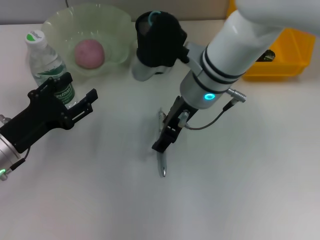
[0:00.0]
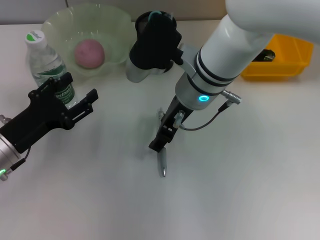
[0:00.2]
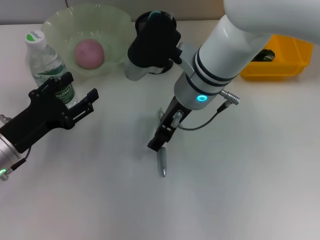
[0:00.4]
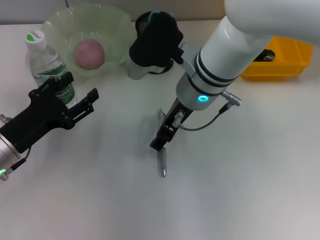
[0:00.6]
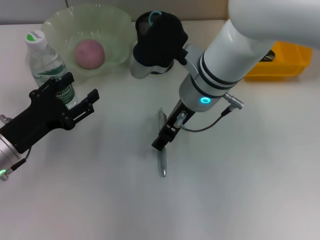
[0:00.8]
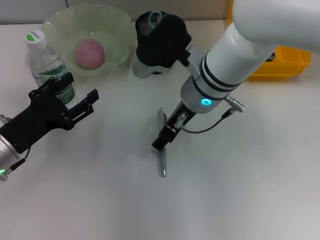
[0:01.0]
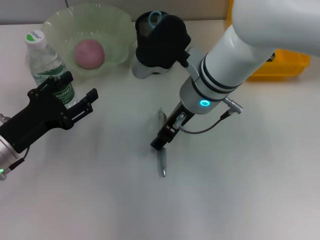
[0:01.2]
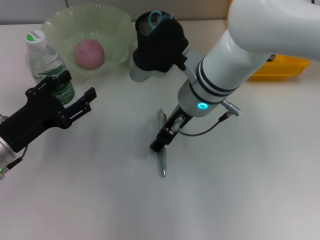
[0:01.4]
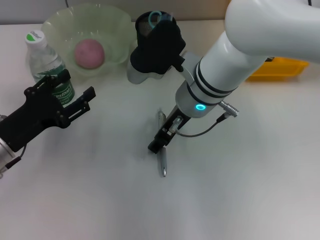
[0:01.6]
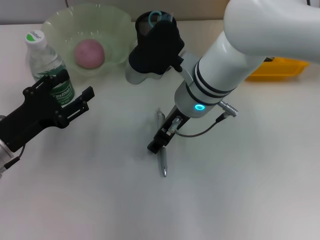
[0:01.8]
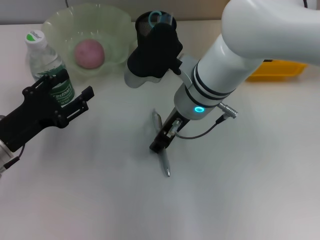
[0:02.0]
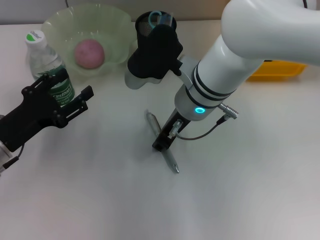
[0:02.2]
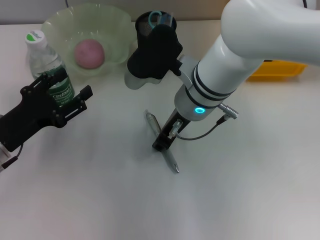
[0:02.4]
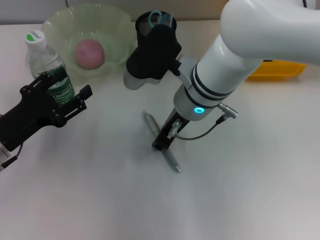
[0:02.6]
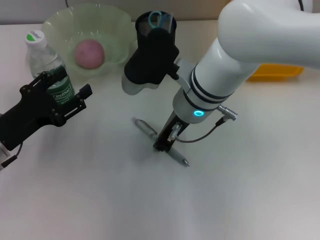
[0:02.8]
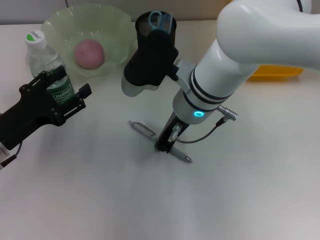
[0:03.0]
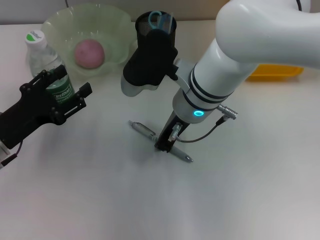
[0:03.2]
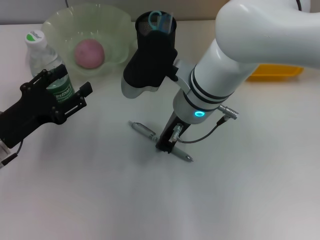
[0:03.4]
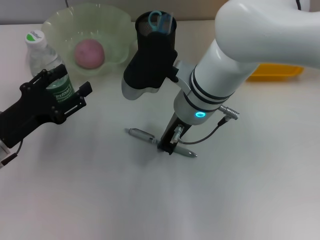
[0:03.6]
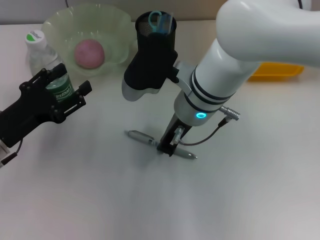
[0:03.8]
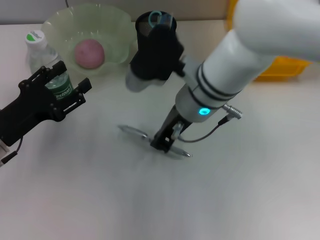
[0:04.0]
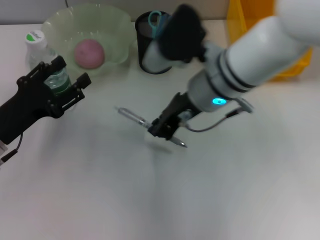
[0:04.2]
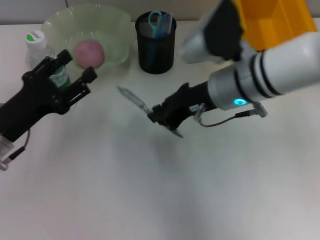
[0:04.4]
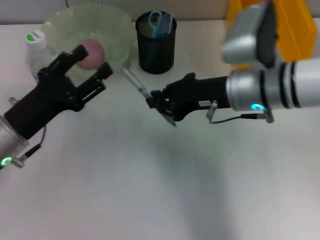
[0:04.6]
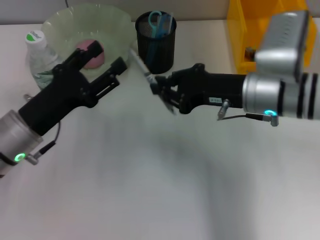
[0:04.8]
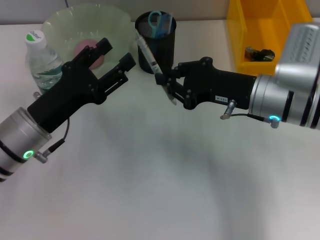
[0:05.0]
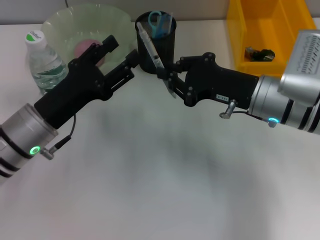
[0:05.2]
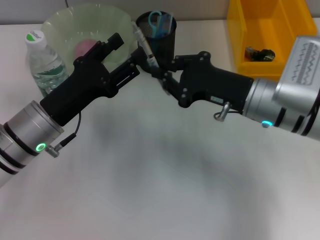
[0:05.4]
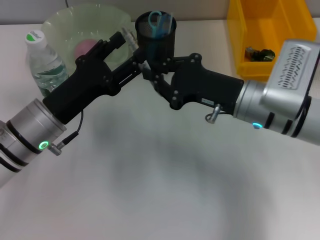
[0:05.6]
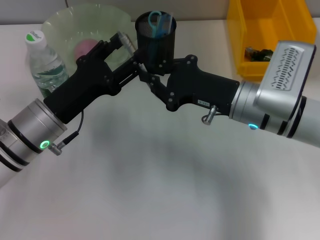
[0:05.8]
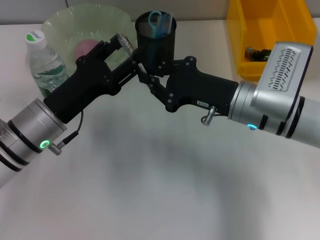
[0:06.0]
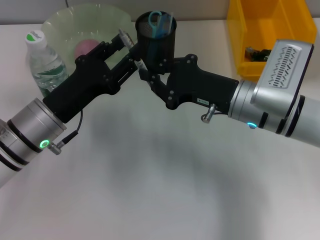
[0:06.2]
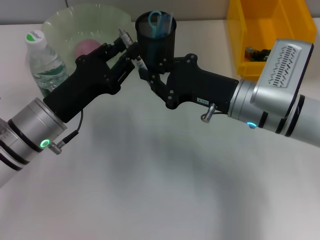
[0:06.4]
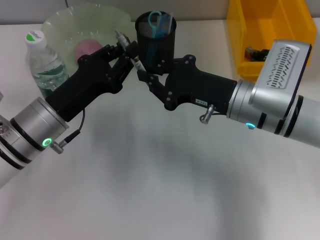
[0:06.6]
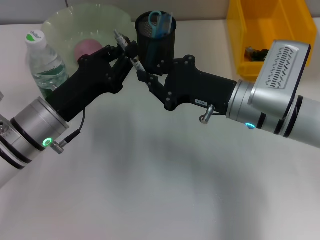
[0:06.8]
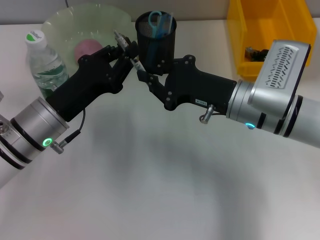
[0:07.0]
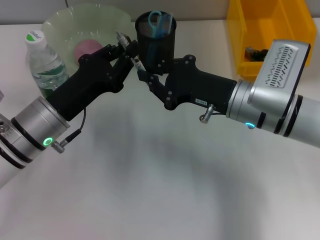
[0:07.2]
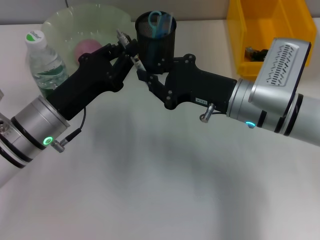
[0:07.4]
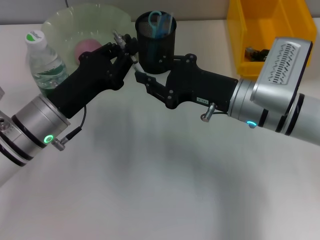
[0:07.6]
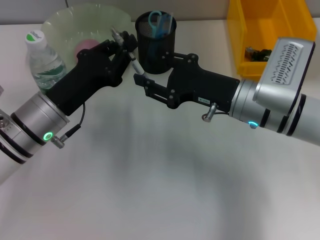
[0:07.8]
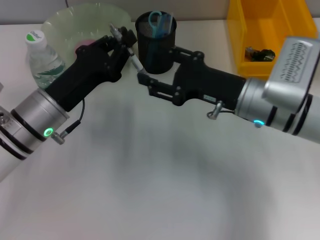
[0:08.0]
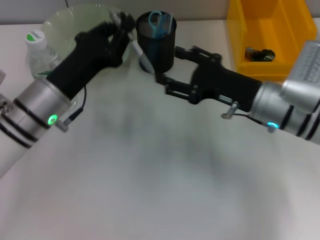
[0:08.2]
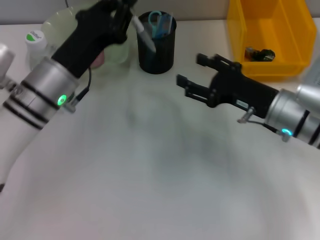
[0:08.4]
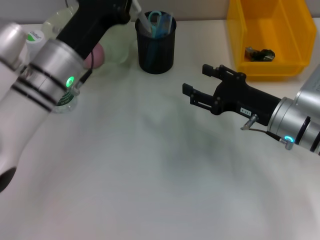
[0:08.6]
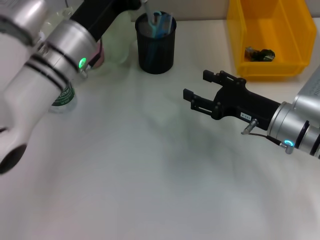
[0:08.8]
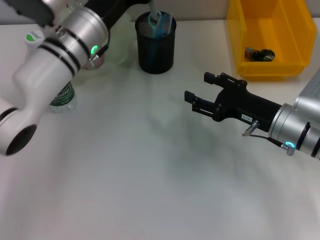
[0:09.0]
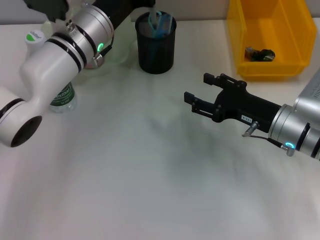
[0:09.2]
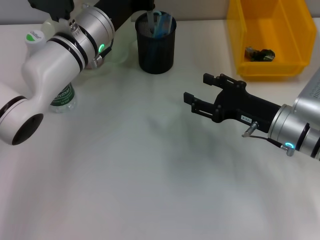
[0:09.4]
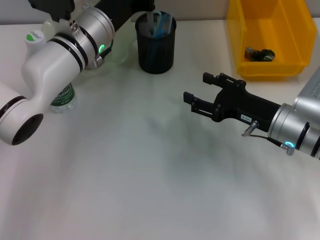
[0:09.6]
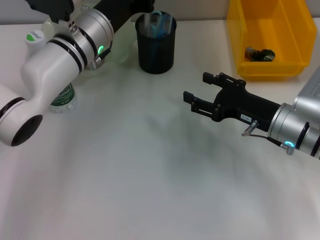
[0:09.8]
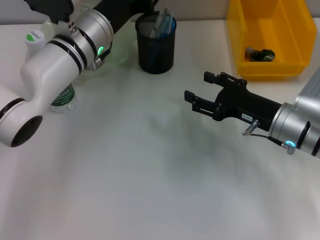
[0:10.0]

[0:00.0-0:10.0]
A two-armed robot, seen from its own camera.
Step, 0:00.0 to 0:03.4: Grab the gray spring-action pen with the right hand.
Step, 0:03.6 to 0:08.0: Pass the gray spring-action pen from the right hand to the left hand.
0:00.0 to 0:01.4: There are only small adjustments of the grippers.
0:01.4 to 0:02.8: The right gripper closes its fingers.
0:04.2 to 0:05.8: The left gripper goes about 10 cm to the right. Meanwhile the right gripper is displaced to the right and downward by approximately 10 cm.
0:05.8 to 0:07.2: The left gripper closes its fingers.
0:07.2 to 0:08.6: The right gripper travels to the right by approximately 5 cm, and opens up. Meanwhile the left gripper is displaced forward by about 5 cm.
0:08.6 to 0:10.0: The left gripper travels forward by about 5 cm.

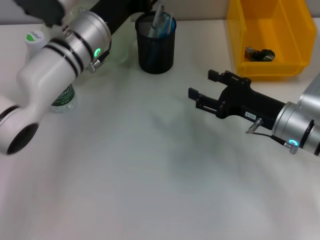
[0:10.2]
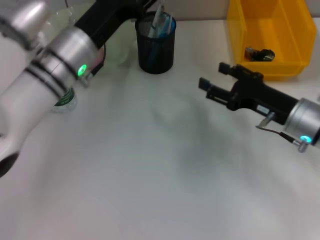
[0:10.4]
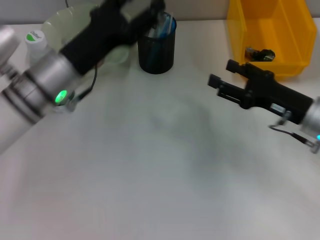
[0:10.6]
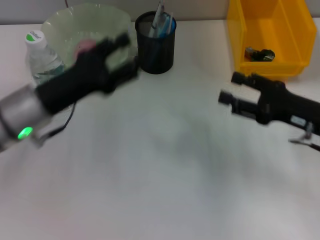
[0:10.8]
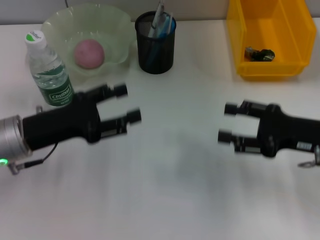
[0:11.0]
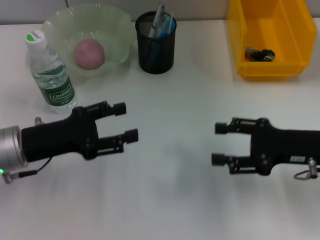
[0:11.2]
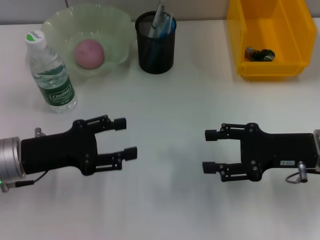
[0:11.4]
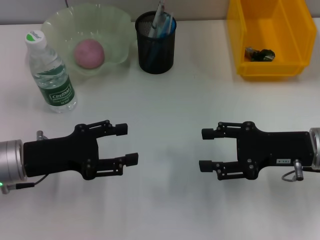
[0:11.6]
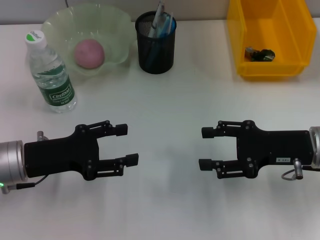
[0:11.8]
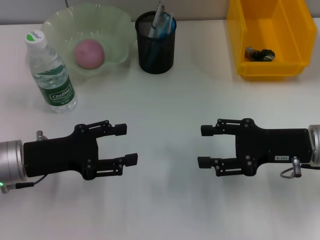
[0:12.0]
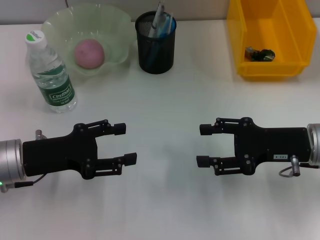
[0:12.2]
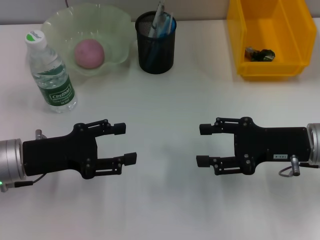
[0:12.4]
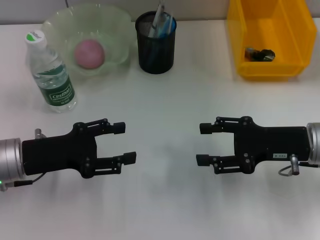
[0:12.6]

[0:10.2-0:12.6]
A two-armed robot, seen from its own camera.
0:10.2 to 0:11.4: The left gripper goes about 20 cm backward and to the left, and opens up. Meanwhile the right gripper shifts by approximately 5 cm.
0:11.4 to 0:12.6: The grippers make only small movements.

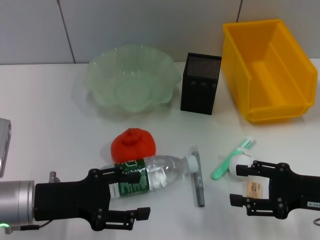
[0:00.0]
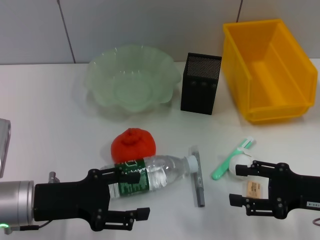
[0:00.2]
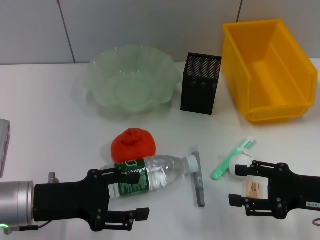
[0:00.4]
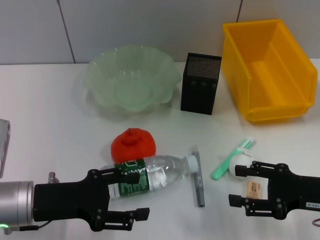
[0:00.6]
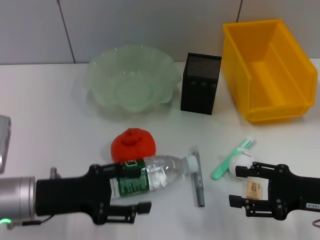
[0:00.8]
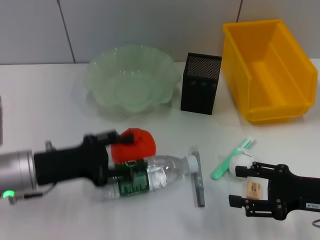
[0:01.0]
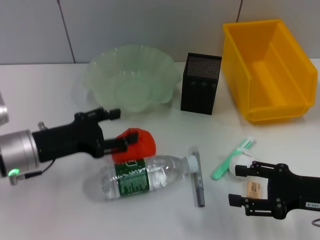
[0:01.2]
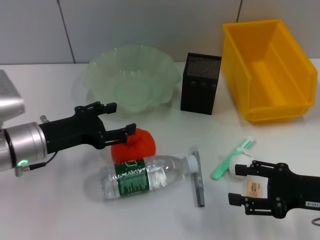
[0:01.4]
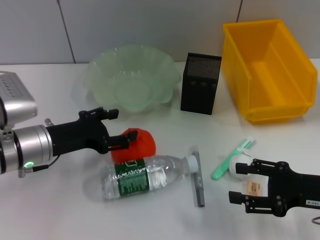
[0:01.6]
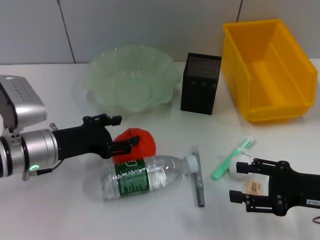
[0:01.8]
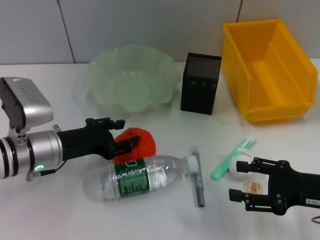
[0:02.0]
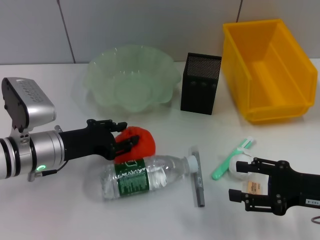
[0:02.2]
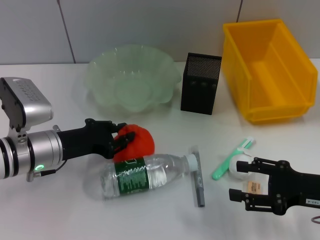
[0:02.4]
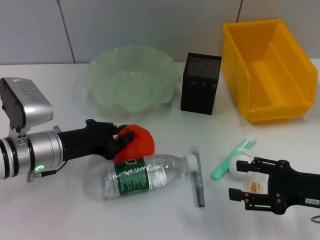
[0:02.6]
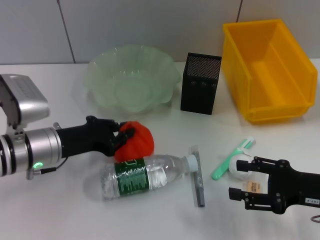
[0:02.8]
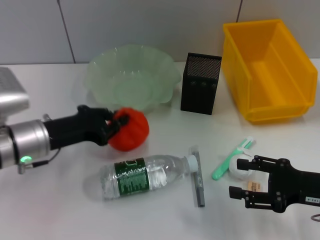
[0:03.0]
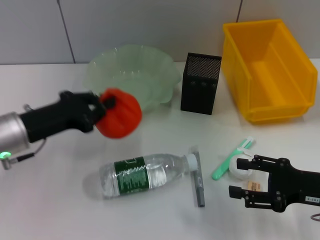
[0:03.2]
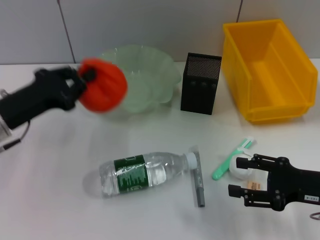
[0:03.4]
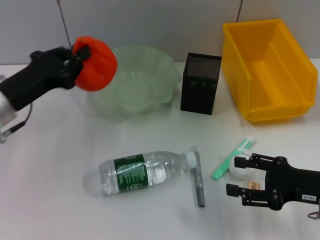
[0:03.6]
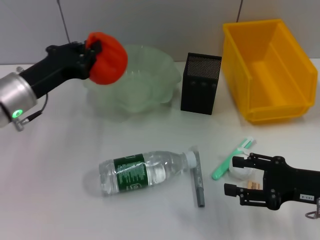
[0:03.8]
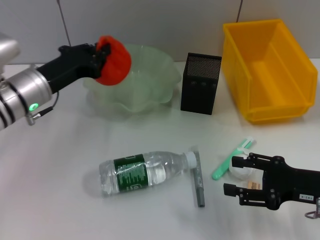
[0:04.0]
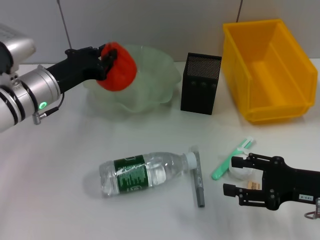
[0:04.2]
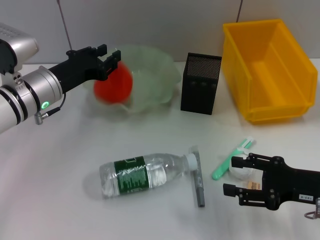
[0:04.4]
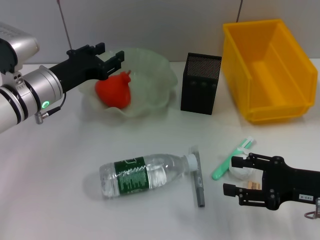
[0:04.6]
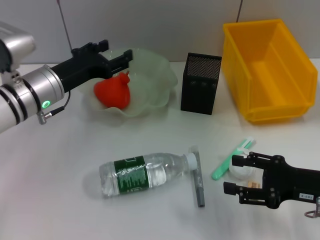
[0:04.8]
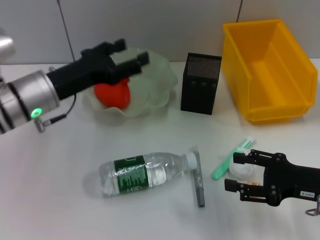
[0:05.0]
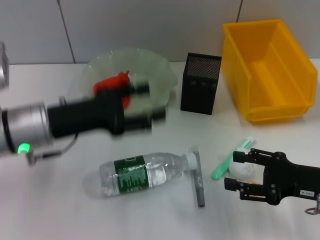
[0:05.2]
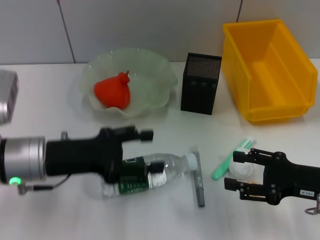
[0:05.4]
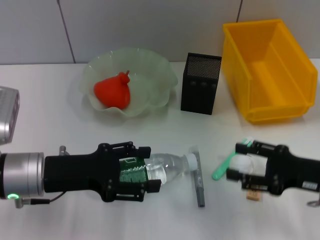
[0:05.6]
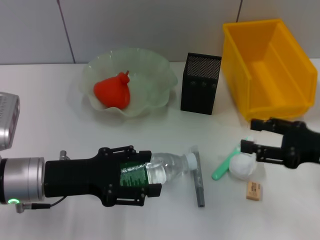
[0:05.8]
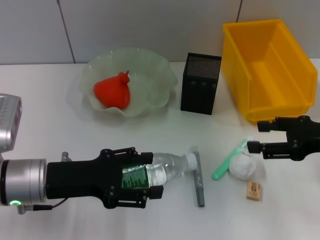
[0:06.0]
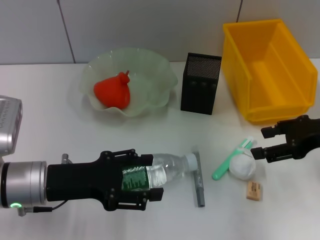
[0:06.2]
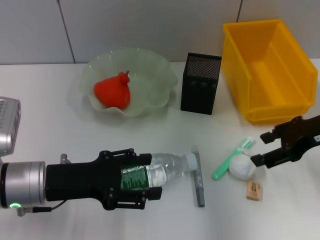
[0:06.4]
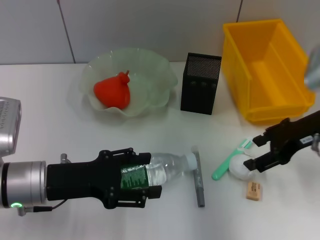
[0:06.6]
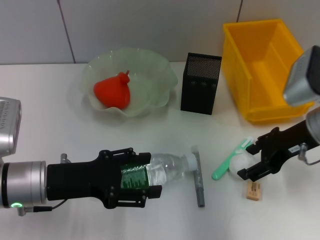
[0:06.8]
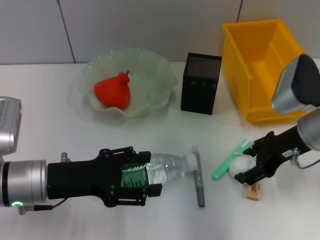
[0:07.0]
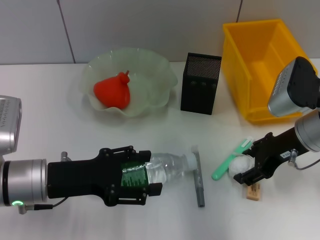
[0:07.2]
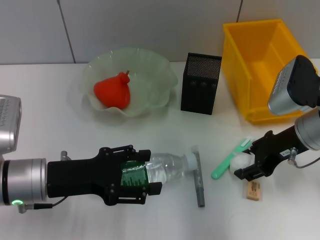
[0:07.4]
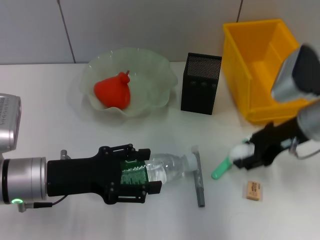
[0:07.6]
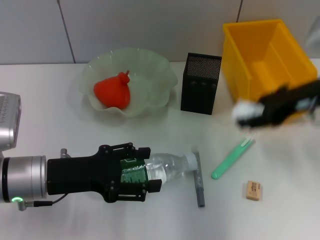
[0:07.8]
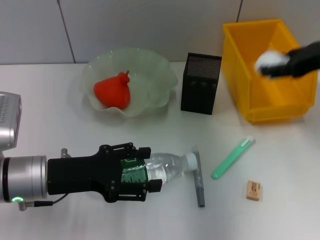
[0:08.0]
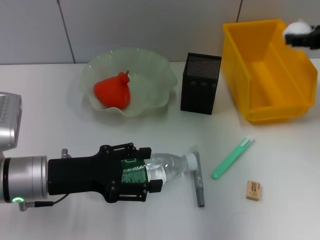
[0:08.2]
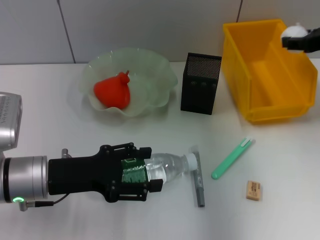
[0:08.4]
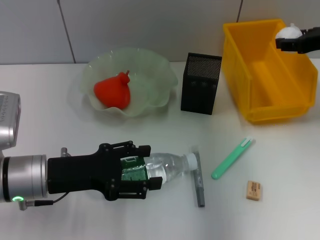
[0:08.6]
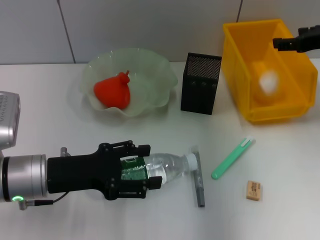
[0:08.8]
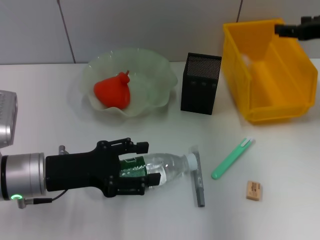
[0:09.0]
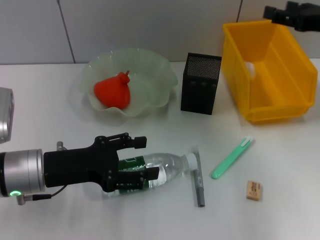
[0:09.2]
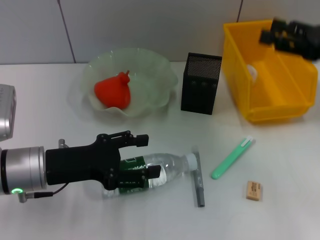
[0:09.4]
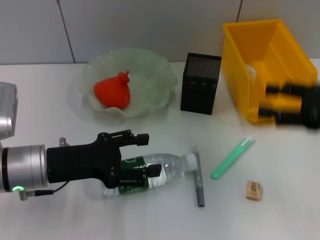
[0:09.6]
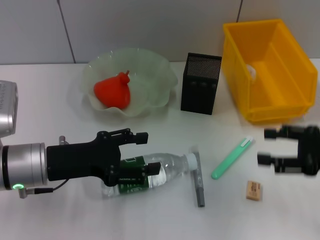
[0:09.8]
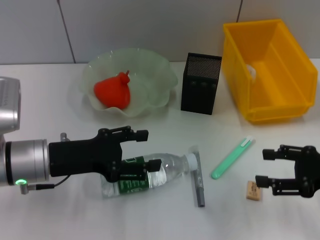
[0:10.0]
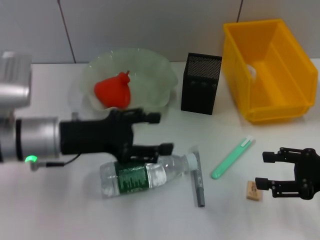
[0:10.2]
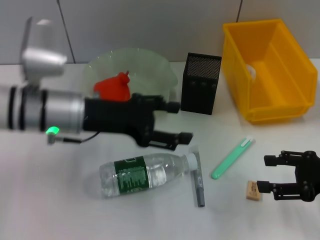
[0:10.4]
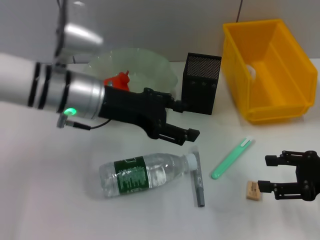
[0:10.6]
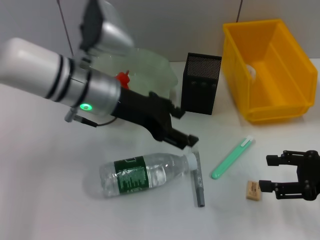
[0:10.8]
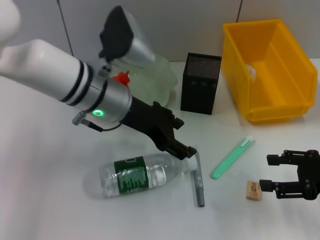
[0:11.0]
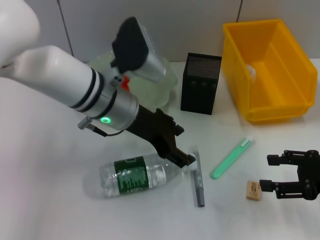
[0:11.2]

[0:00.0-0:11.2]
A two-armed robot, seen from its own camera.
Step, 0:00.0 to 0:02.4: Grab the orange with the left hand.
Step, 0:02.6 to 0:04.6: Place the orange into the fruit bowl with the left hand.
Step, 0:04.8 to 0:07.4: Grab the paper ball with the right hand.
Step, 0:07.6 to 0:08.8: Place the paper ball into the trash can with the right hand.
0:00.0 to 0:01.6: The left gripper goes approximately 5 cm forward.
0:01.6 to 0:03.2: The left gripper closes its fingers.
0:03.2 to 0:04.8: The left gripper moves forward, approximately 5 cm, and opens its fingers.
0:04.8 to 0:06.4: The left gripper goes some 10 cm backward. The right gripper moves upward and forward, roughly 15 cm.
0:06.4 to 0:08.0: The right gripper travels upward by approximately 5 cm.
0:08.0 to 0:09.6: The right gripper shifts roughly 10 cm downward and backward, and opens its fingers.
0:09.6 to 0:11.2: The right gripper shifts some 5 cm downward, while the left gripper travels to the right, forward and upward by about 15 cm.
